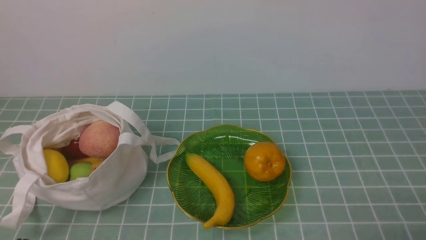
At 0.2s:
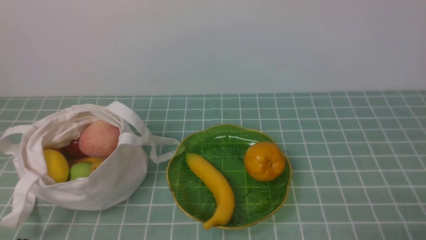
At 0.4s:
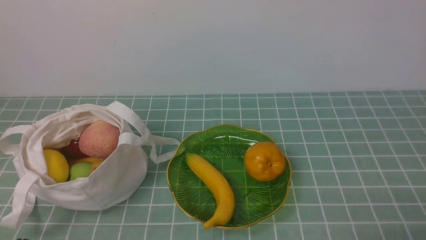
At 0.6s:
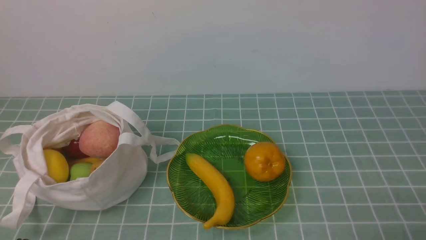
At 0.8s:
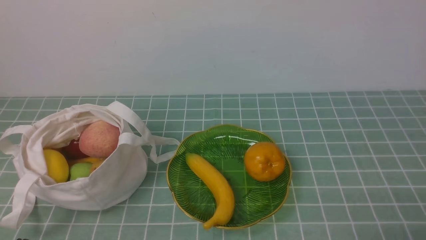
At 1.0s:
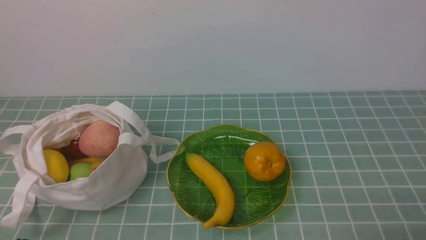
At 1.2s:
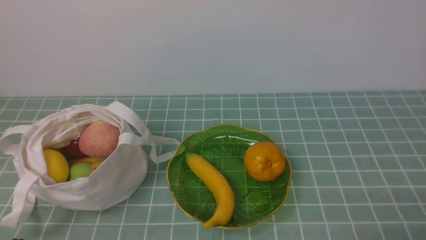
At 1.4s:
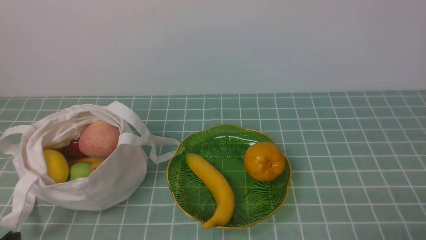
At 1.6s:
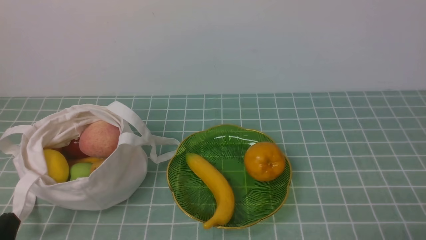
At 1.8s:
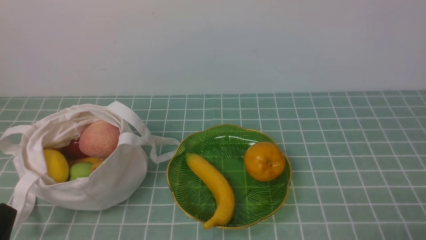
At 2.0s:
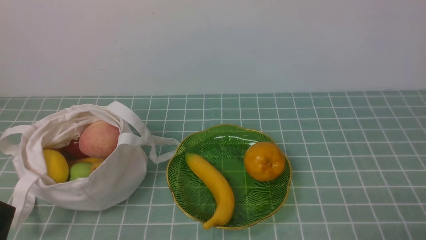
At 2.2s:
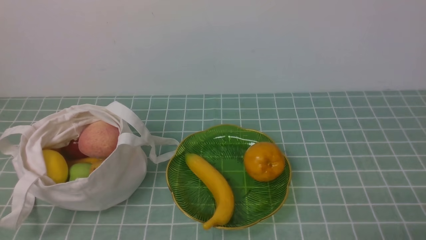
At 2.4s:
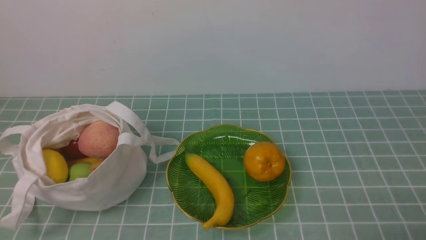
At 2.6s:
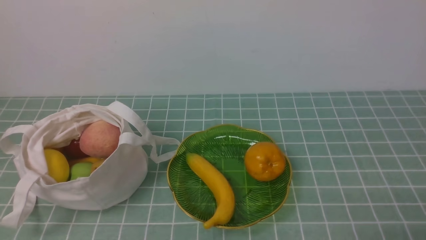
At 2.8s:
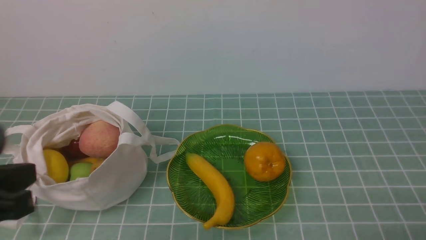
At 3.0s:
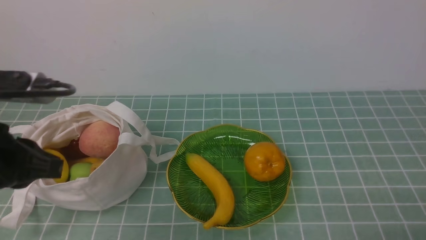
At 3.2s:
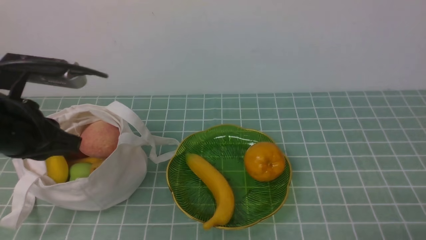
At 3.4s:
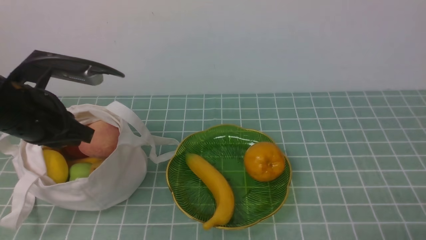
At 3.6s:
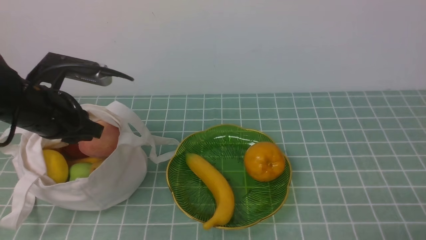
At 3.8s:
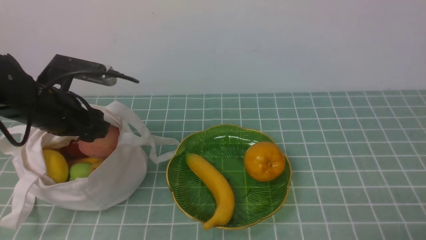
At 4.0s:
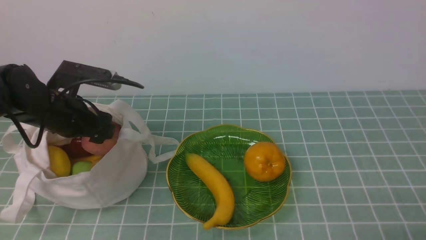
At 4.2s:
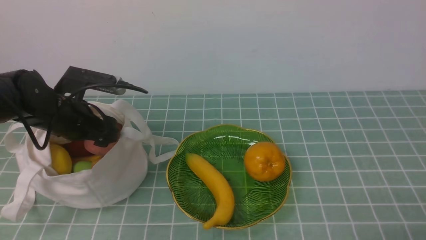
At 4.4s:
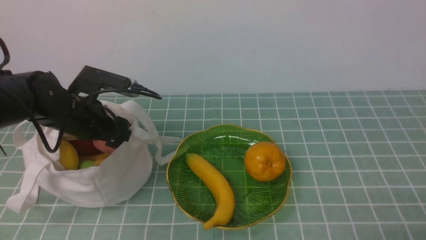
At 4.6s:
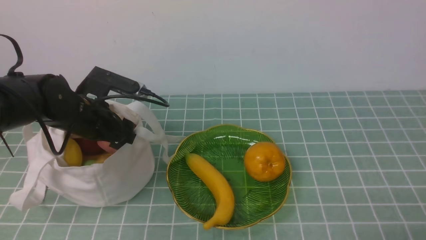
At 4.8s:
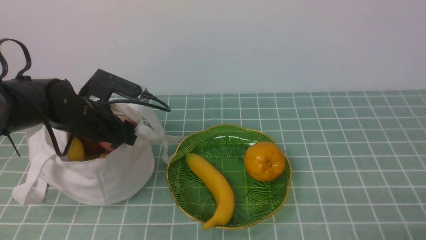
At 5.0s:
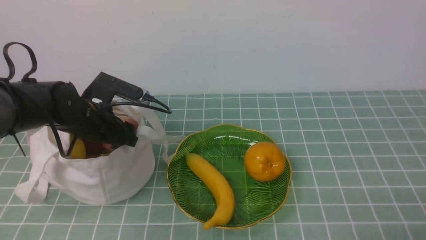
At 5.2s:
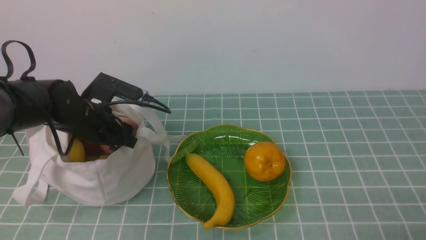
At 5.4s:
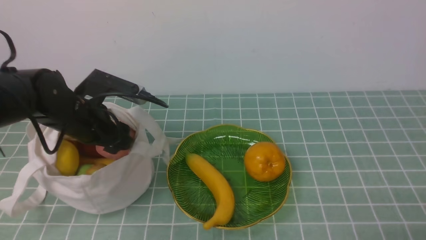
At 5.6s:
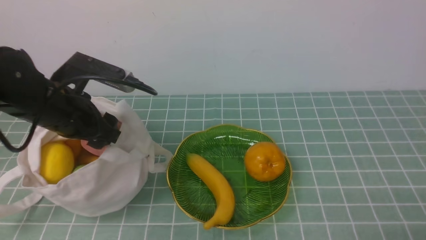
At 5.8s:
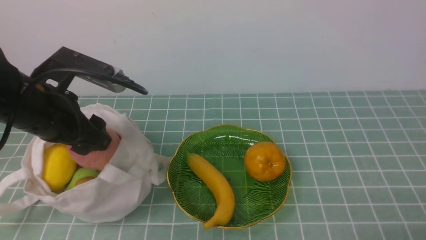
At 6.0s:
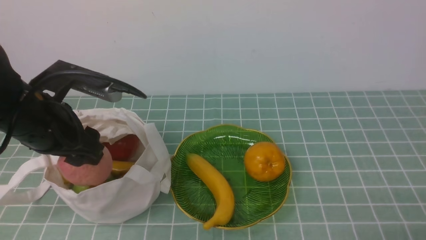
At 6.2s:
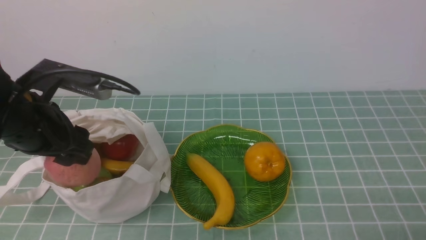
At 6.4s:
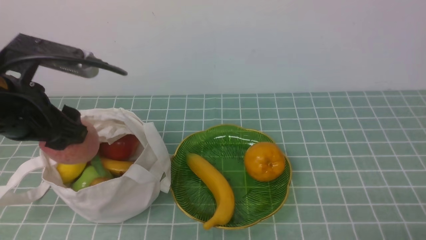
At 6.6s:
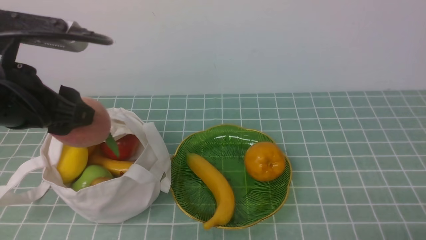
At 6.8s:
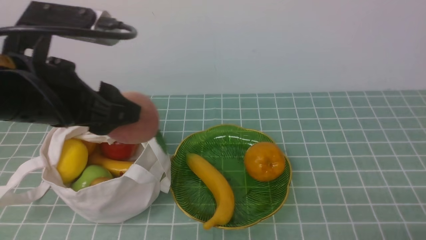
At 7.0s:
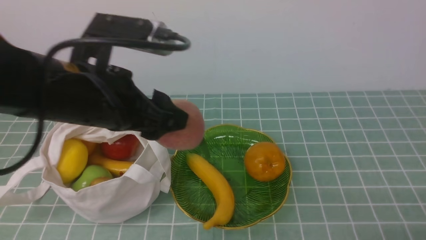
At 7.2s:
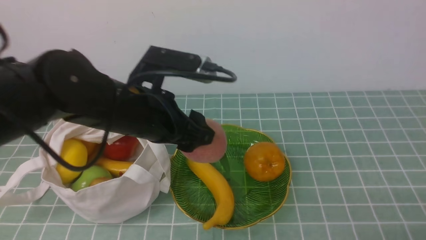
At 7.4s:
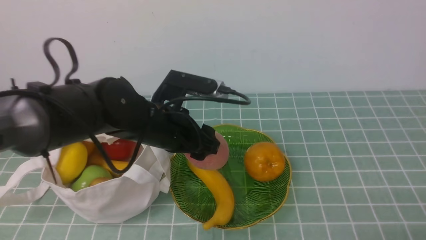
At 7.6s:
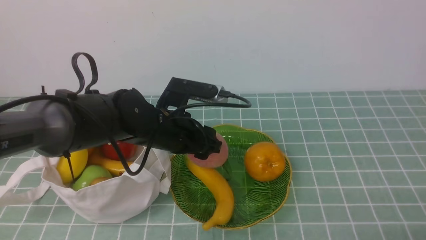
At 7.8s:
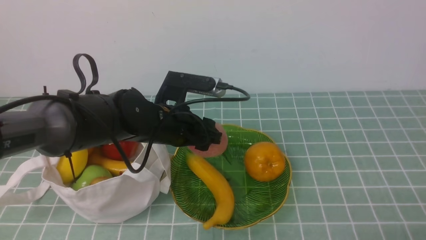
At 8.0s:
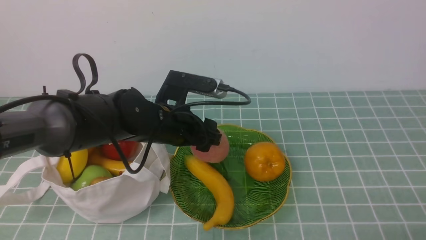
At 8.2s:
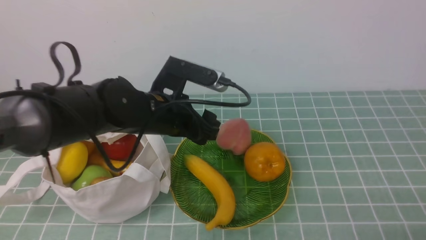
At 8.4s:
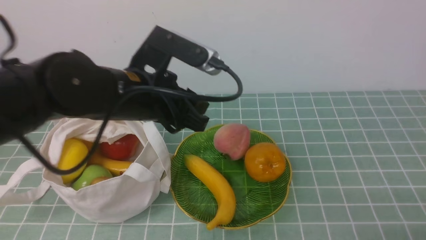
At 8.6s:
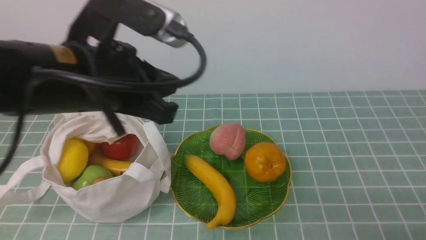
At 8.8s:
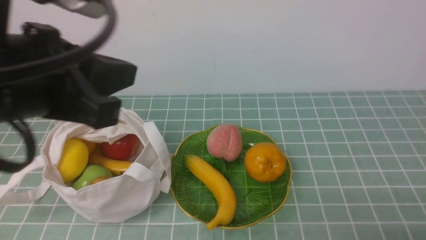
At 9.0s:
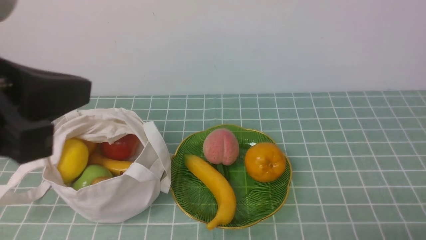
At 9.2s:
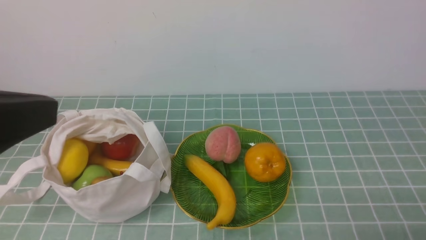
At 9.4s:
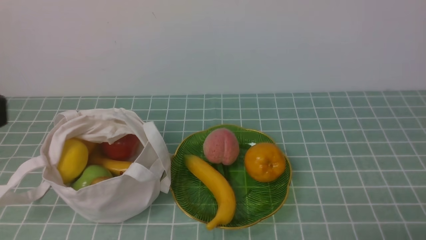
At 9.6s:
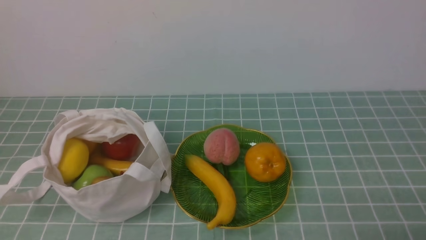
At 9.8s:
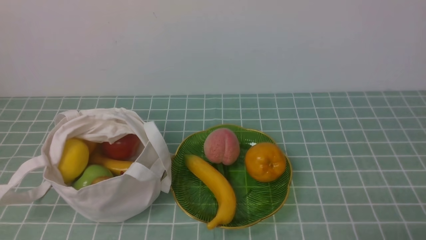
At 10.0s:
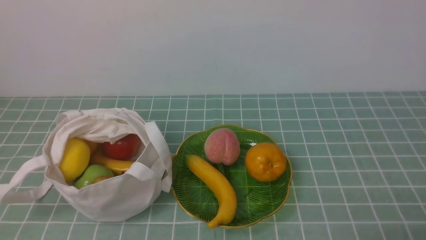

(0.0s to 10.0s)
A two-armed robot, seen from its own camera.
Step, 0.0s - 6.2s: use the left arm to grab a peach from the bag.
Step, 6.4s - 8.0s: use the left arm to put the peach into the empty plate on the right.
1.4s - 2.8s: The left gripper goes roughly 15 cm upward.
2.8s - 4.2s: The left gripper heads forward, covering approximately 25 cm, and opens.
4.2s - 5.8s: The left gripper is displaced upward and backward by some 10 cm.
5.8s - 7.2s: The left gripper travels to the right by about 10 cm.
7.2s - 8.6s: The left gripper goes downward and returns, roughly 10 cm each way, and closes up.
8.6s - 10.0s: The left gripper moves backward and to the left, some 30 cm.

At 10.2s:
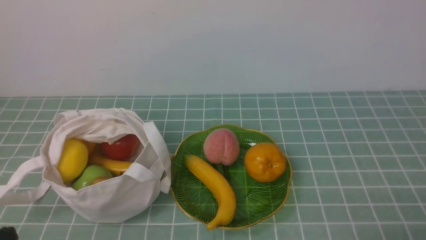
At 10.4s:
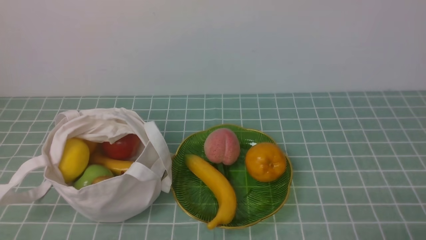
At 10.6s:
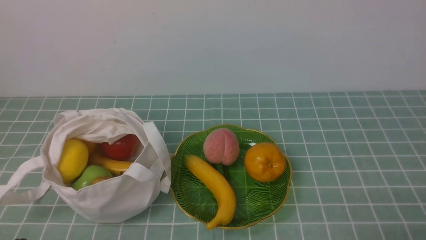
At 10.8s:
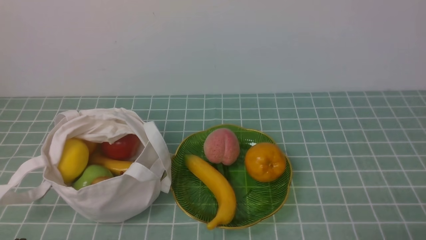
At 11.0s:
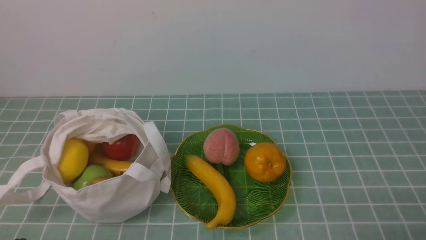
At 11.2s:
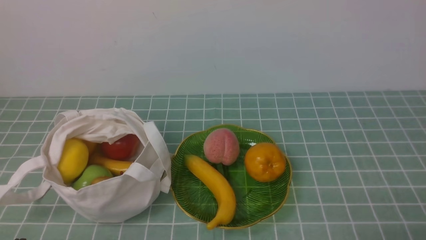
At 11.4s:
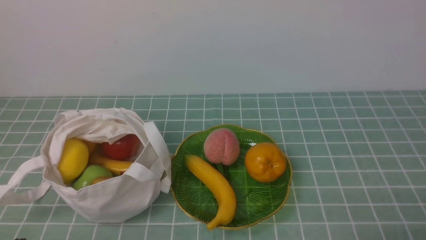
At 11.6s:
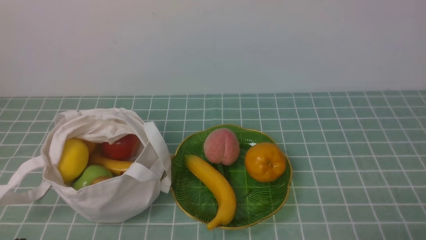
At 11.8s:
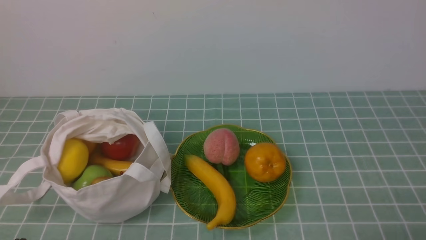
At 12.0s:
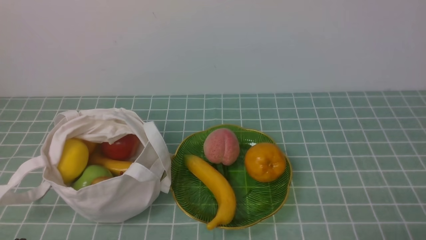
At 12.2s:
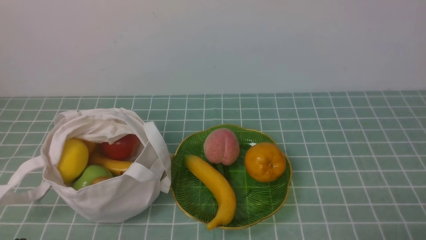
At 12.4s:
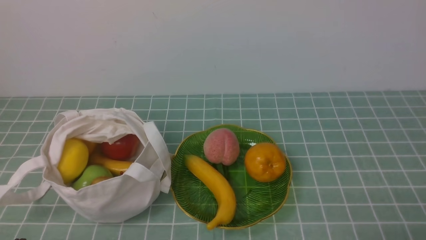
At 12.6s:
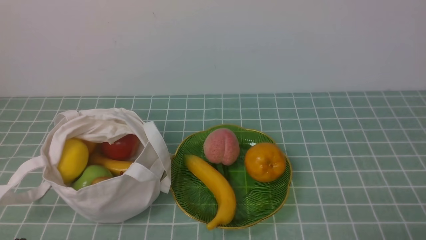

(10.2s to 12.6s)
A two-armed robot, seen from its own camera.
11.4s - 12.6s: Both grippers stay about where they are.
